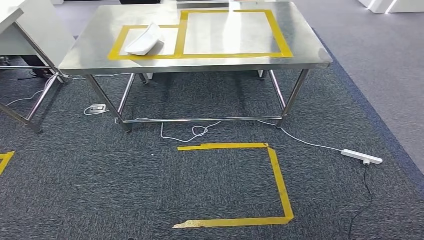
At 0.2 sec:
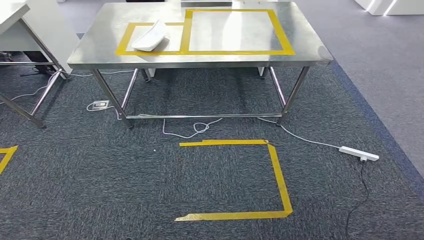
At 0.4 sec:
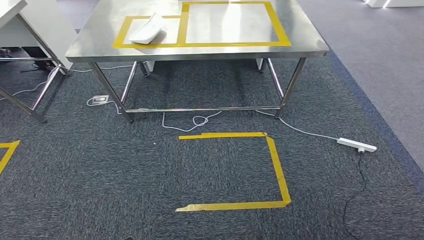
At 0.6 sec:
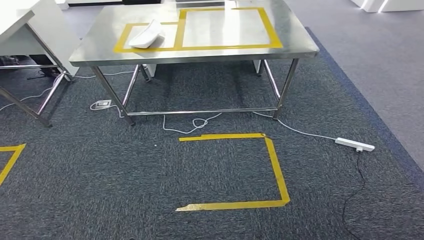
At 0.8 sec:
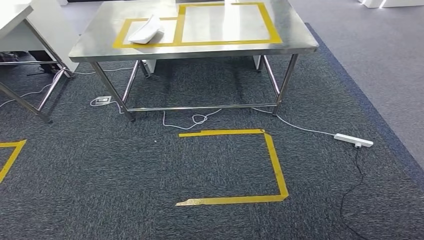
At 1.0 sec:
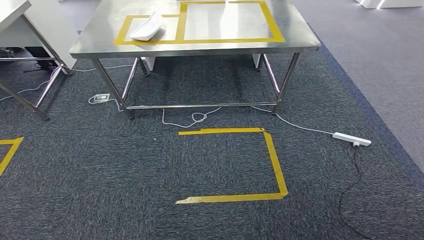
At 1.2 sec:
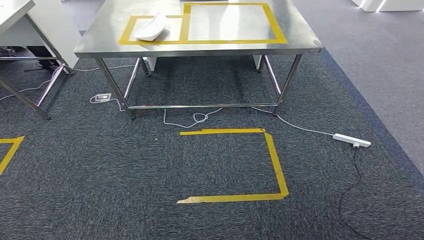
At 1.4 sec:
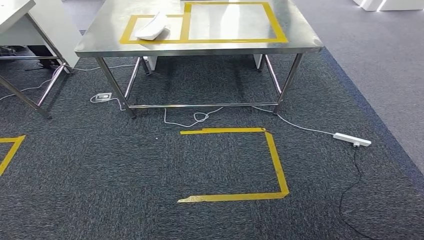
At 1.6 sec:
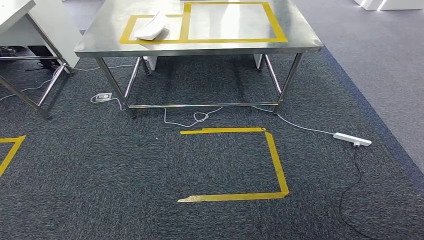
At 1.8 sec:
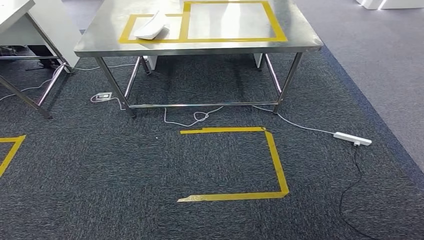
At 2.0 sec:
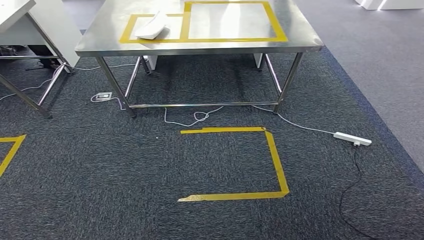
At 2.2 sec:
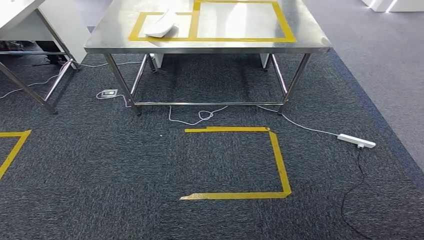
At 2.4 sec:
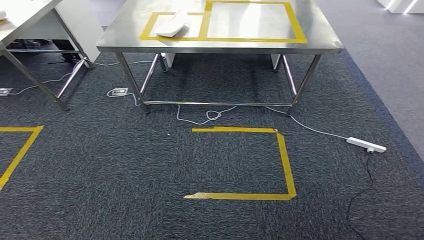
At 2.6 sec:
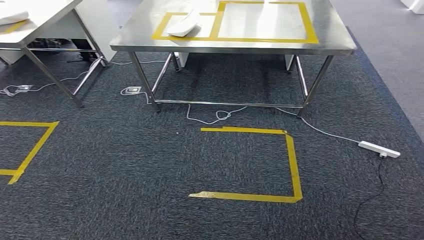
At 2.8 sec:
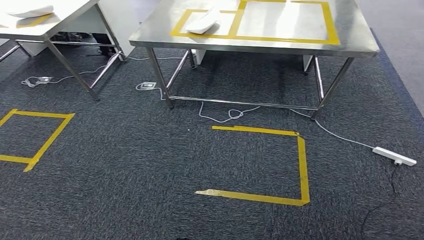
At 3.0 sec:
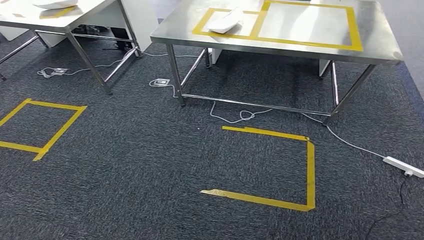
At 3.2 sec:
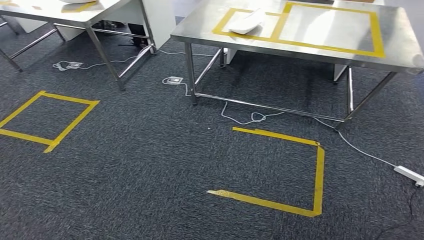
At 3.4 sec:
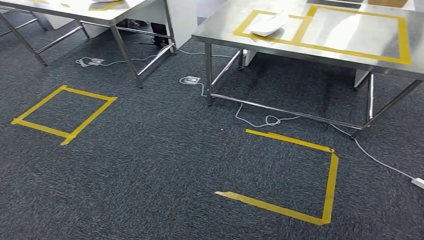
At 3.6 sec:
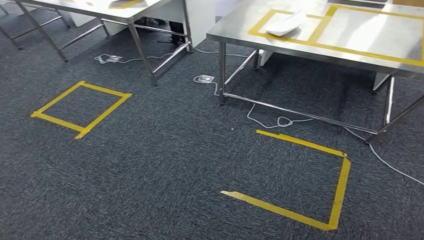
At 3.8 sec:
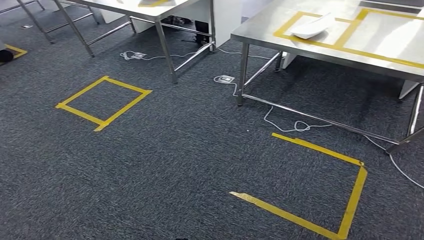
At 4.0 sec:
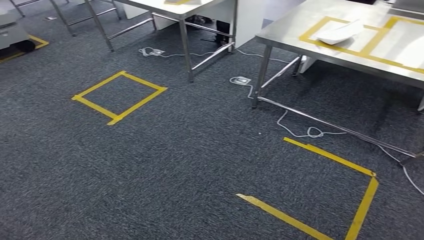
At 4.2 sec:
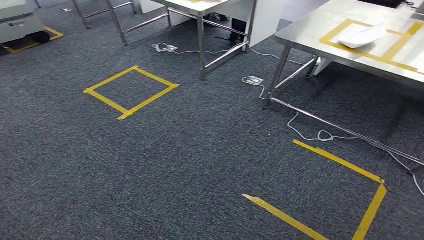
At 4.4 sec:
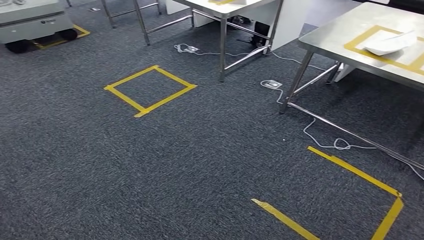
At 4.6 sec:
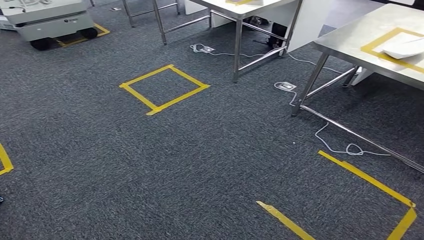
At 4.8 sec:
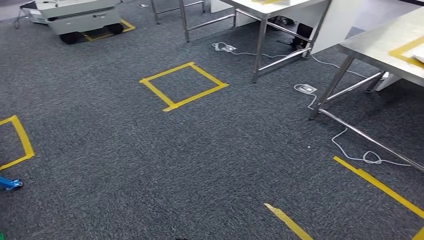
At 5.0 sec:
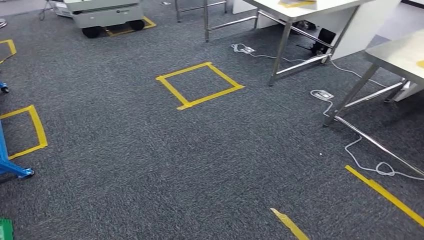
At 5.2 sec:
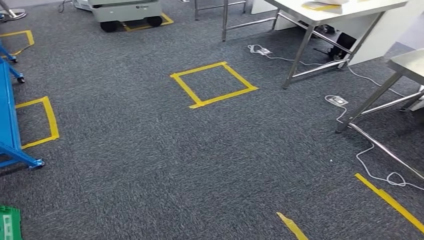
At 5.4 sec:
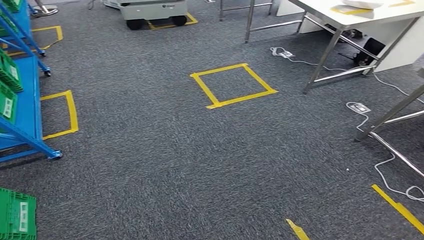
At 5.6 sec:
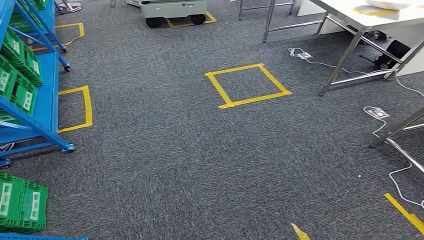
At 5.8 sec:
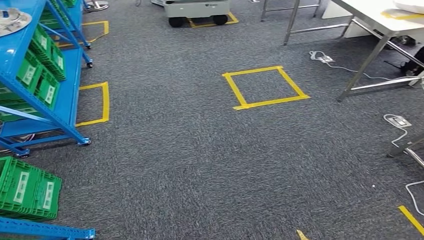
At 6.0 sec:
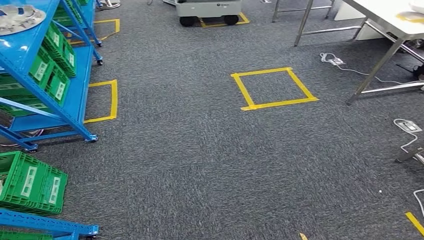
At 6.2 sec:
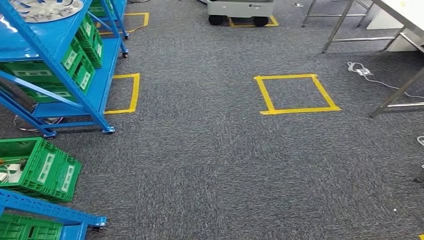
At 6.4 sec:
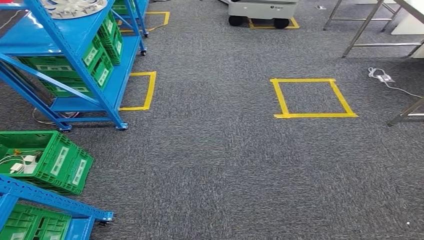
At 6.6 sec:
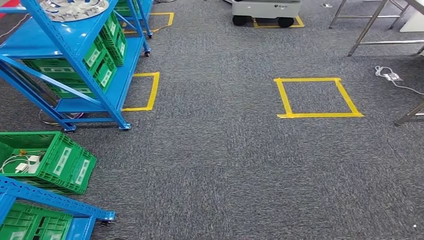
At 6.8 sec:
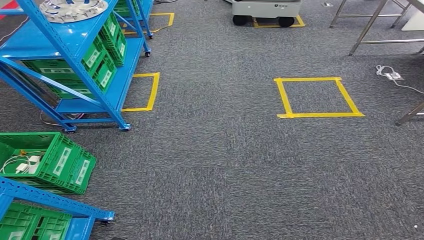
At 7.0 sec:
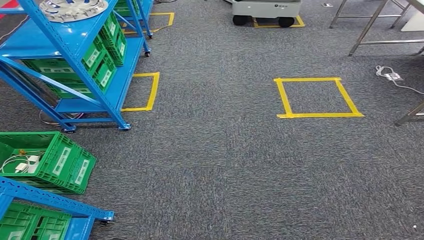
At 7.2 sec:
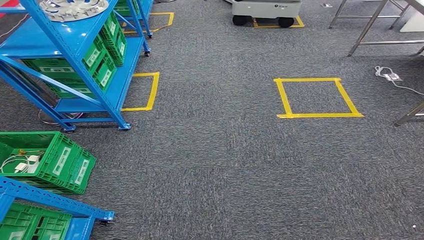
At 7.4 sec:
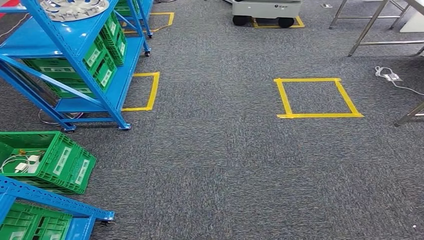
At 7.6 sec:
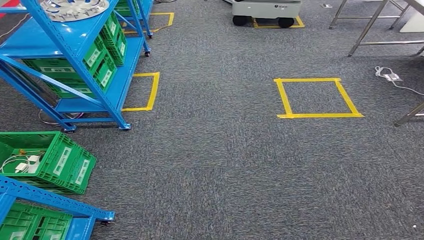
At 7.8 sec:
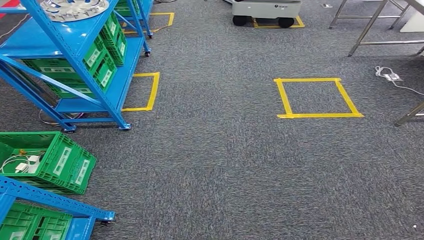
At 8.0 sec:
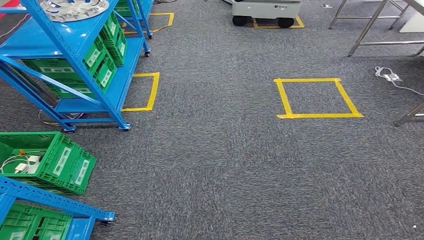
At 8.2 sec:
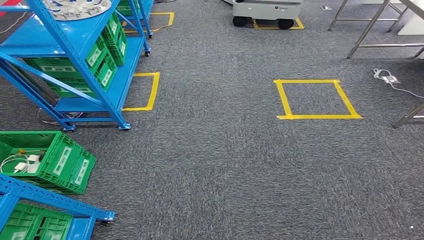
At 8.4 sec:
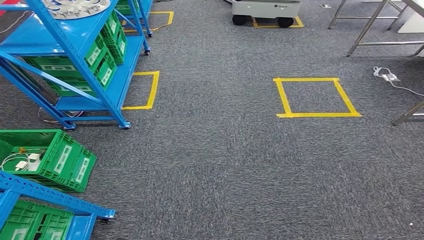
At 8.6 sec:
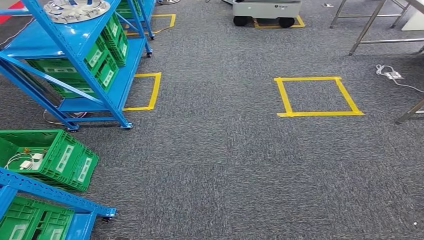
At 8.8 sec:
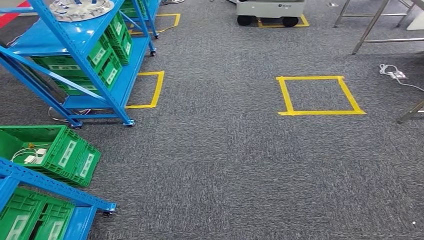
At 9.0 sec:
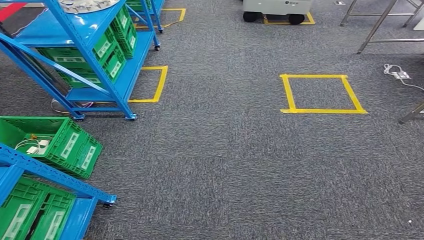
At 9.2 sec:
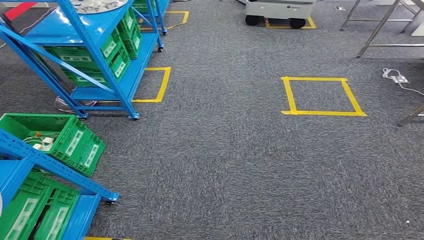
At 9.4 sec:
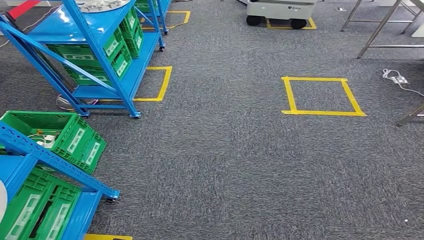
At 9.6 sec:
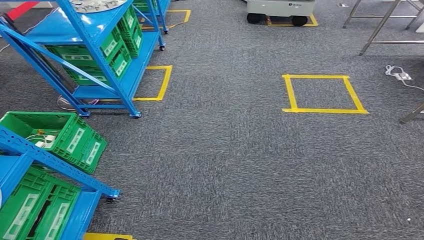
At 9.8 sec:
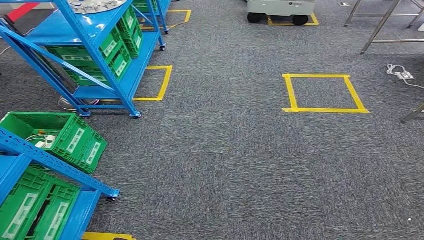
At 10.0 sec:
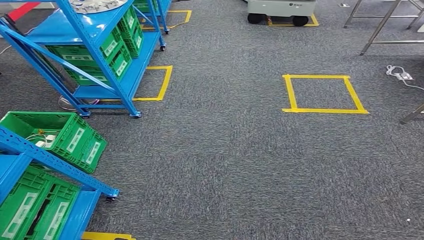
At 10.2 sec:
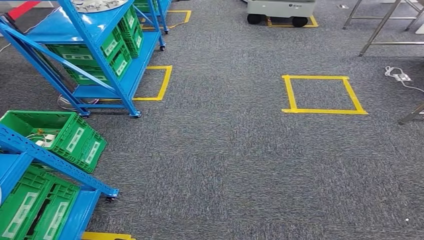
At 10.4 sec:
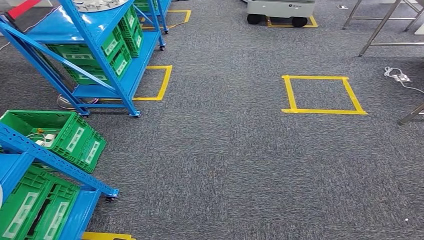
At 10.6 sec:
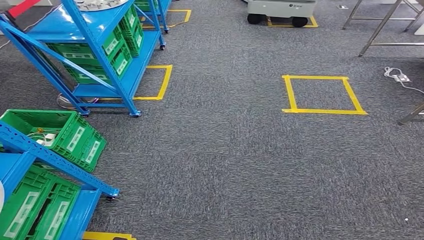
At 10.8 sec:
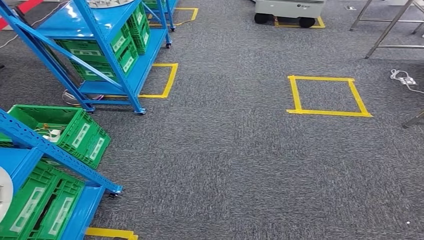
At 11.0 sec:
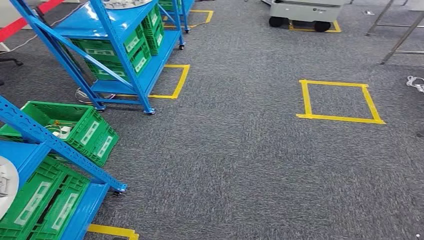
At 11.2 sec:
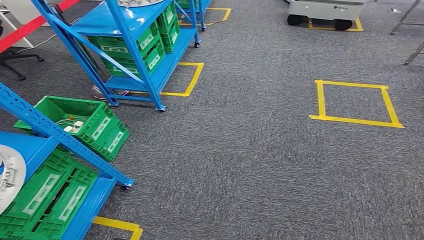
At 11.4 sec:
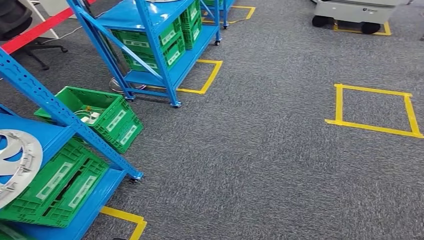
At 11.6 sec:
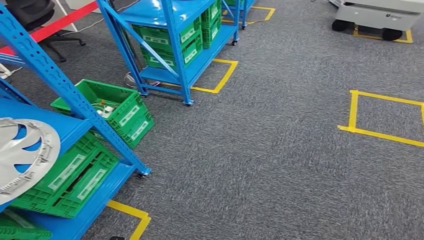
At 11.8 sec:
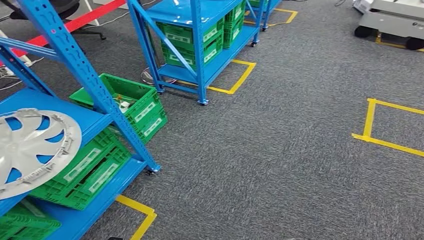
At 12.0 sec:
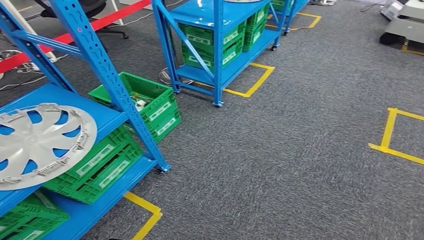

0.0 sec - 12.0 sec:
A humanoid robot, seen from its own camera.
Step, 0.0 sec - 7.4 sec: Insert the small component into the corresponding slot on the workbench.
9.0 sec - 10.4 sec: Neither hand changes place.

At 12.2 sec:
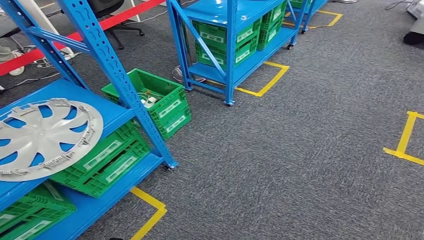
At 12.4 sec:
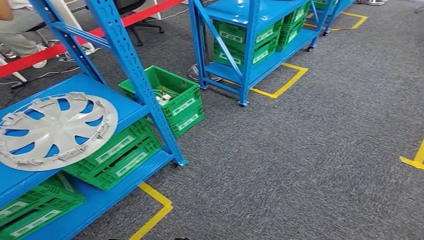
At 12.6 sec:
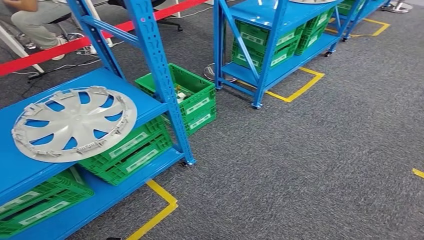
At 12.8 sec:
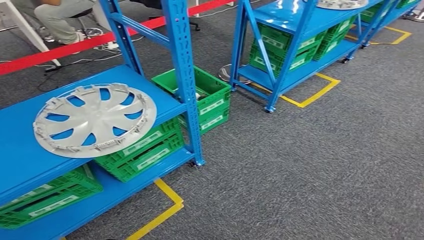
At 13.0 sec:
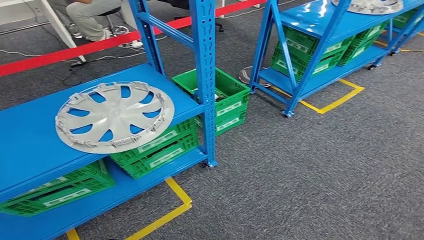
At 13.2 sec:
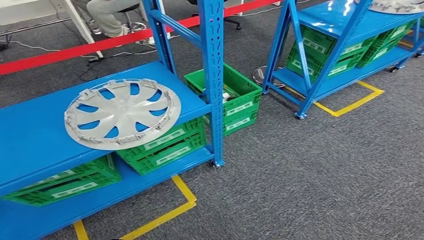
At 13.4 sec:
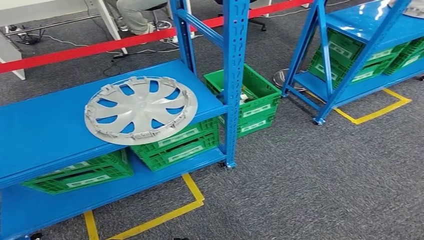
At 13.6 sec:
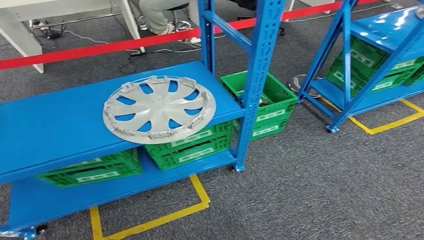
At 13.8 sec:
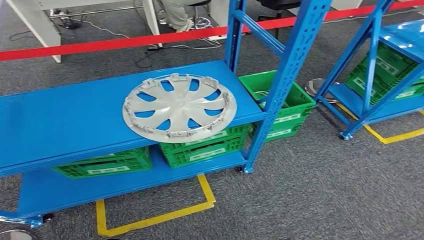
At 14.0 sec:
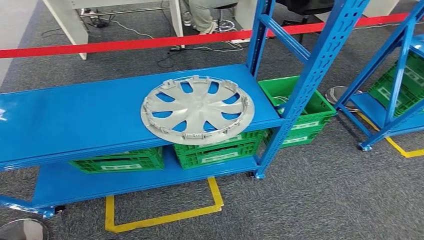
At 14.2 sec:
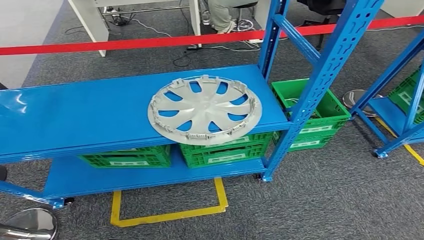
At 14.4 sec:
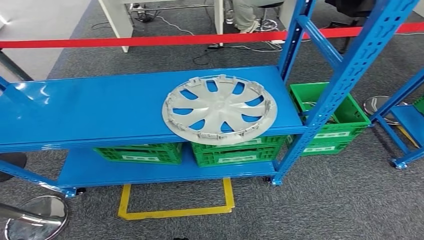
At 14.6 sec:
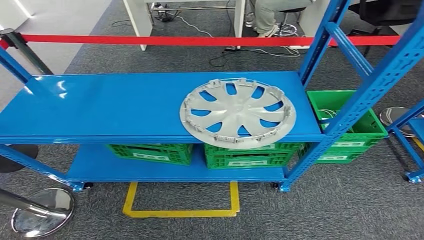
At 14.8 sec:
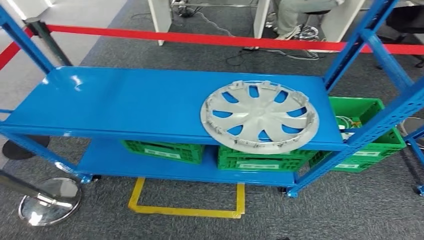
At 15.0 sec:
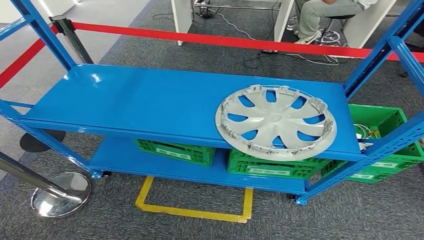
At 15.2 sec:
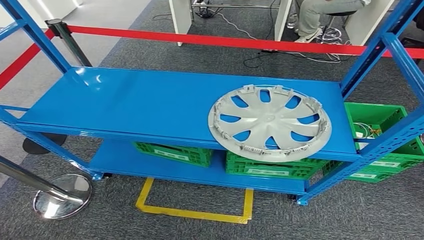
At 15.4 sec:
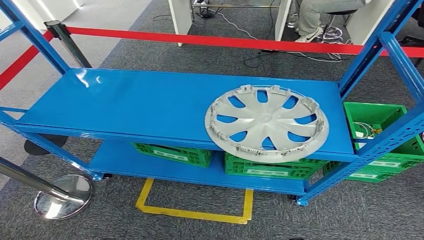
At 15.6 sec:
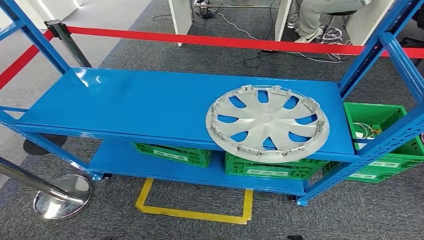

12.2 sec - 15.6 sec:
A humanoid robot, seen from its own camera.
Step, 12.2 sec - 15.4 sec: Move to the initial position of the workbench.
